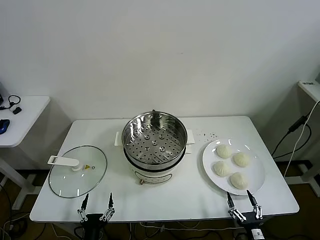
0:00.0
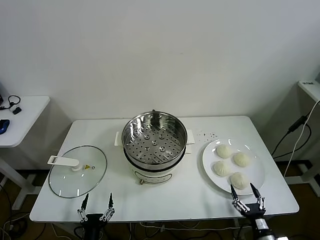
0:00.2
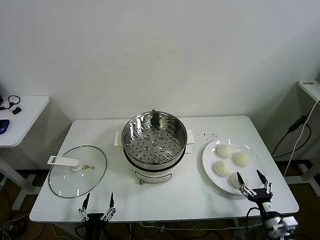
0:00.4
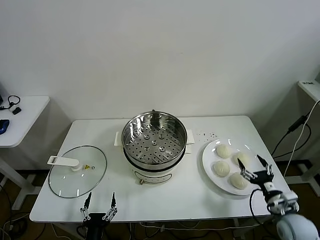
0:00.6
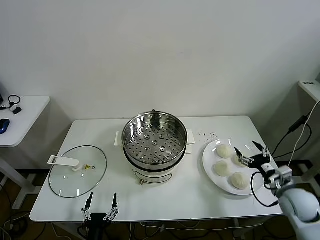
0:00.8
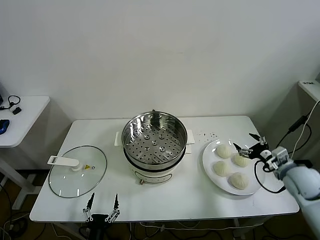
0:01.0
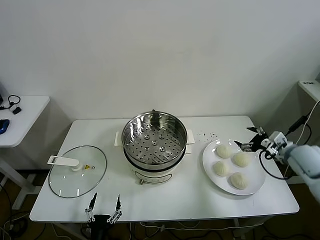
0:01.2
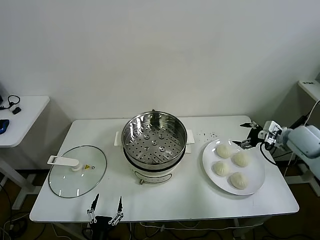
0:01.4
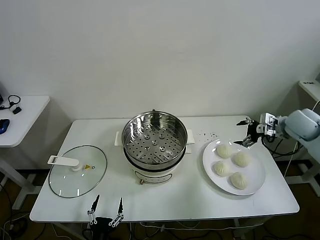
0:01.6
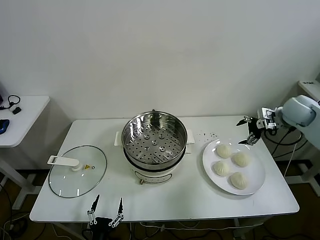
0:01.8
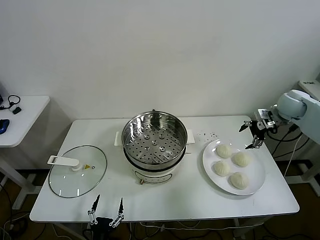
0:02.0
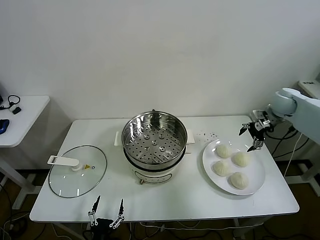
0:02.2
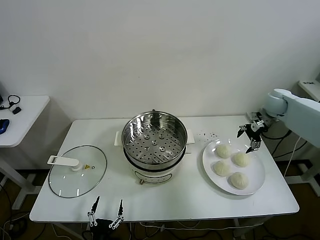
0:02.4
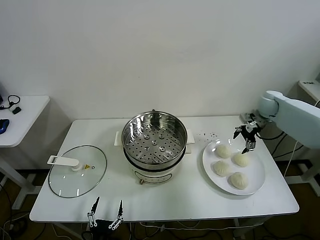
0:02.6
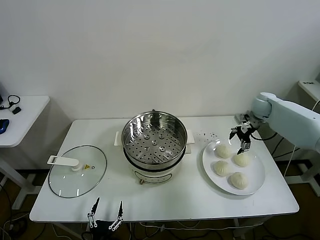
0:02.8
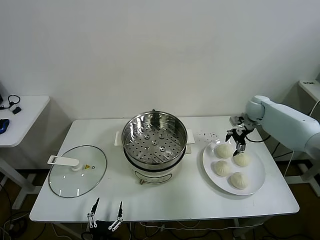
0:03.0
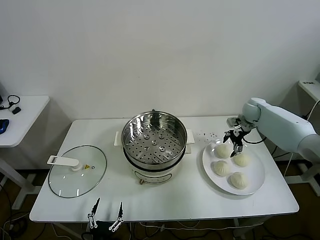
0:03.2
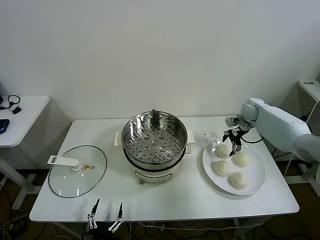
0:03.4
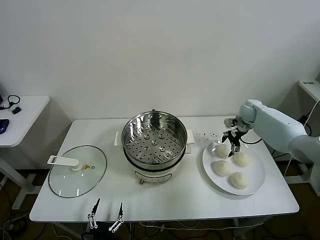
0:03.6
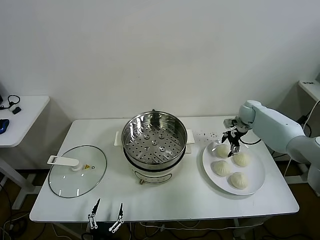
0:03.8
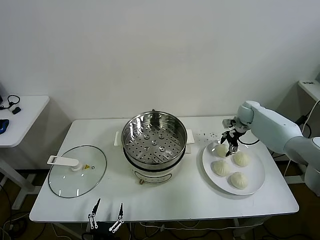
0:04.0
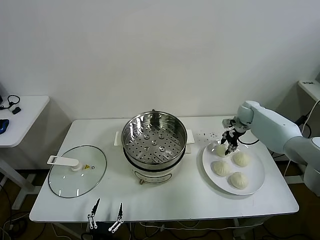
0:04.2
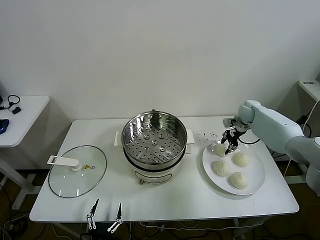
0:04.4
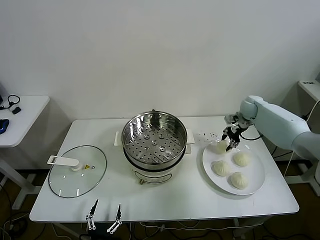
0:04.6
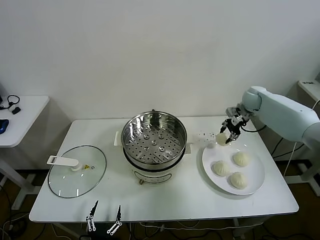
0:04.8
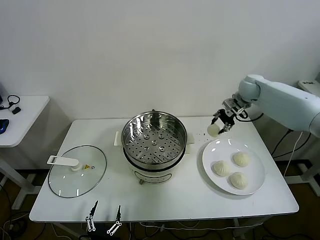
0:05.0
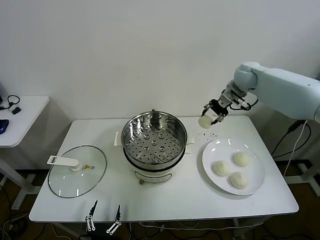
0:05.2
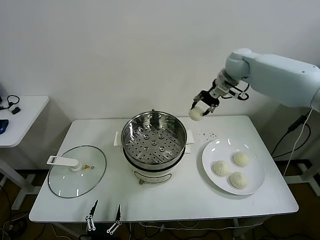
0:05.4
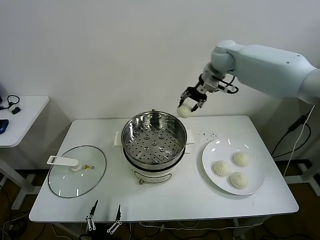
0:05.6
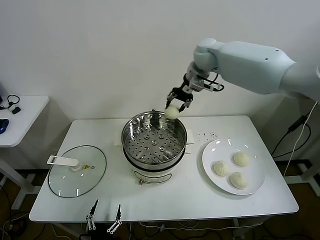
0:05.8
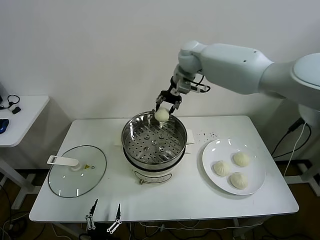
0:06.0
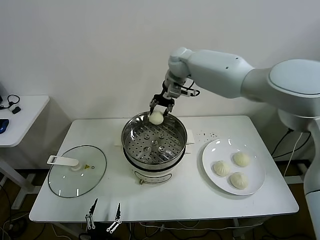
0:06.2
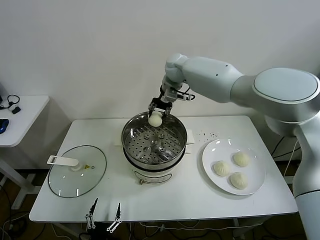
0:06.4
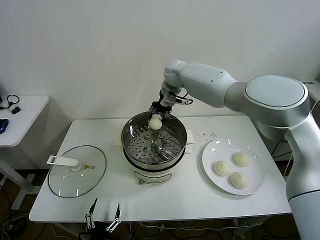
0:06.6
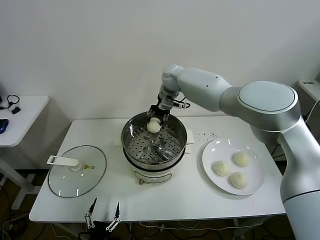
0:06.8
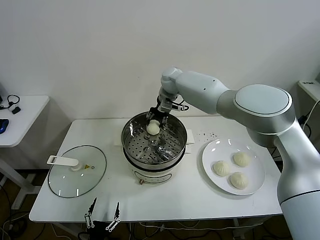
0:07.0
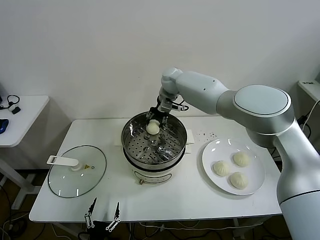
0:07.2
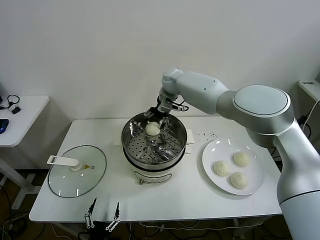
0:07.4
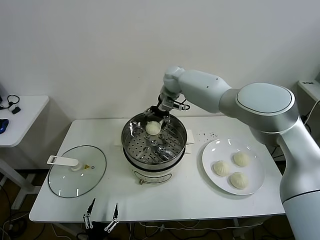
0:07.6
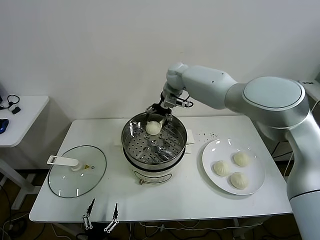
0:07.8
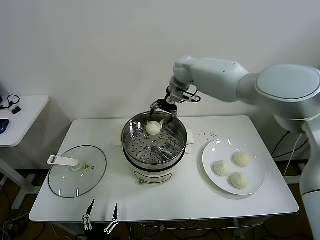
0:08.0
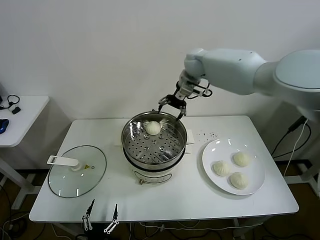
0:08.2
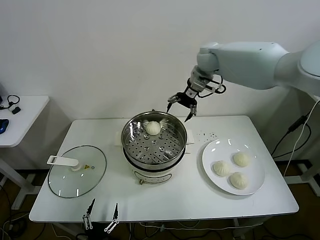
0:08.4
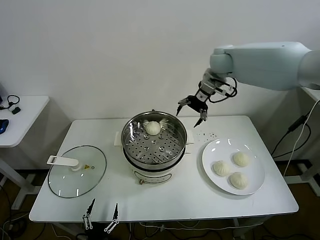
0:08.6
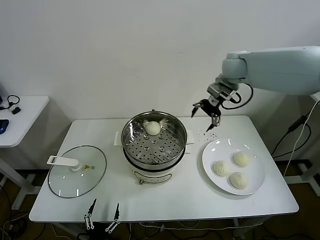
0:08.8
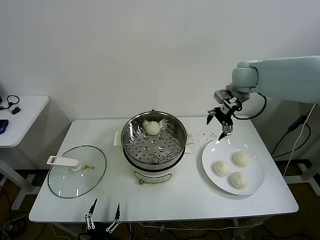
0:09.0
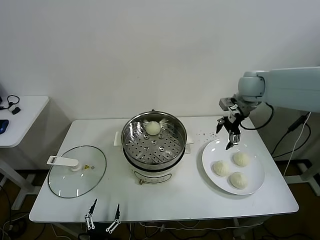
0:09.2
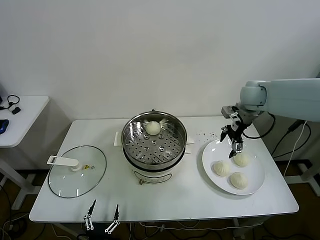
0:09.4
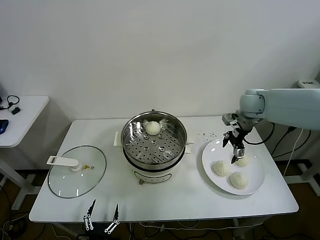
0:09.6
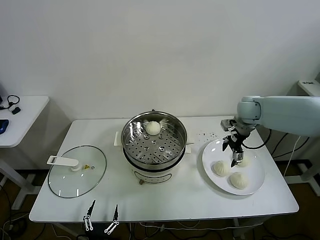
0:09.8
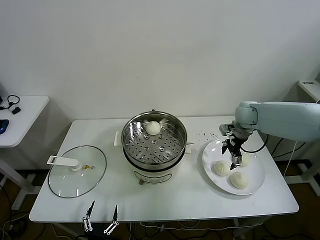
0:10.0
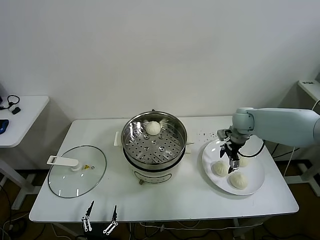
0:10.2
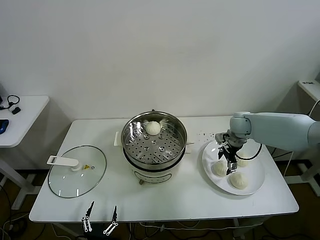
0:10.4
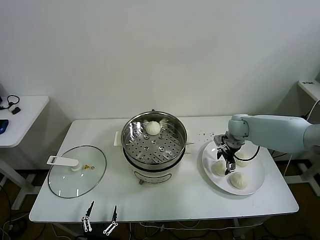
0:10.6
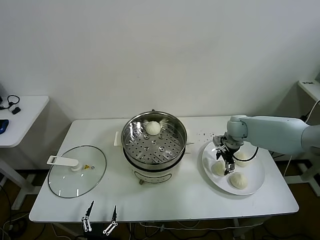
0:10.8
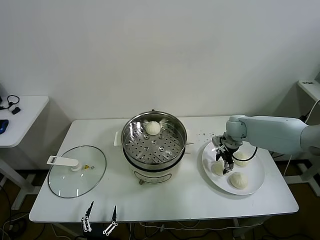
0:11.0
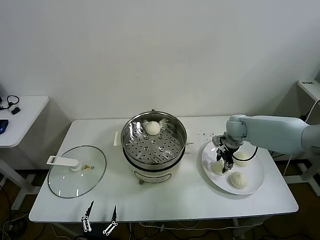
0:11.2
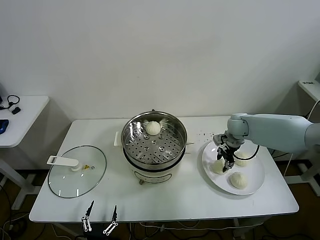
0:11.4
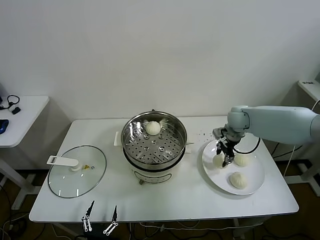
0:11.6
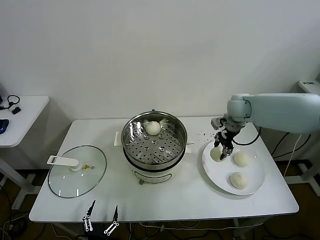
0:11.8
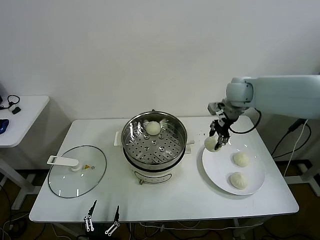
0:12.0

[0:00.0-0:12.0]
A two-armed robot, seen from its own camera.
Task of the whole recording: take steamed baozi put them in steamer.
Step, 0:00.0 to 0:04.2: Grasp the baozi in the plate with right gripper.
Step, 0:04.4 to 0:07.6: Place the baozi on the steamer with right gripper.
Step, 0:07.8 to 0:11.2: Grasp the baozi in the plate with right gripper.
0:01.6 to 0:03.0: The right gripper goes approximately 15 cm forward, downward and to the left.
0:03.0 to 0:04.4: The right gripper closes up.
0:04.4 to 0:06.0: The right gripper heads to the left and upward, covering about 35 cm.
0:06.0 to 0:07.6: The right gripper shifts about 10 cm downward, and opens.
0:07.6 to 0:09.0: The right gripper travels to the right and backward by approximately 25 cm.
0:09.0 to 0:10.4: The right gripper travels downward by approximately 20 cm.
0:10.4 to 0:12.0: The right gripper travels upward by roughly 20 cm, and closes.

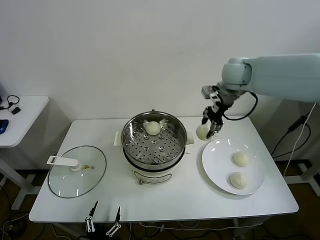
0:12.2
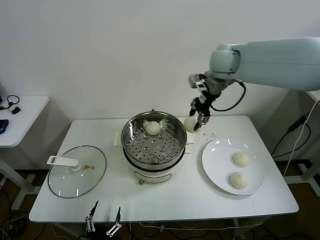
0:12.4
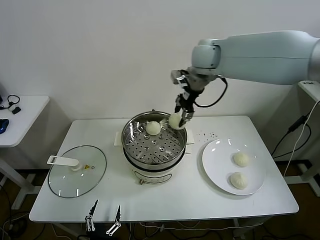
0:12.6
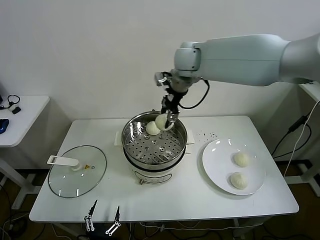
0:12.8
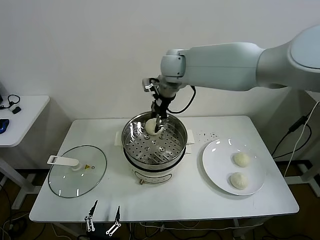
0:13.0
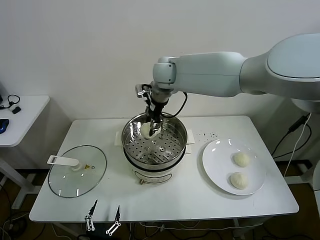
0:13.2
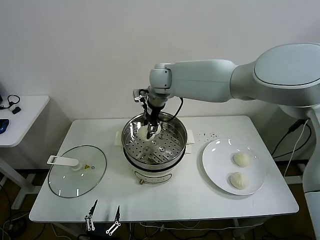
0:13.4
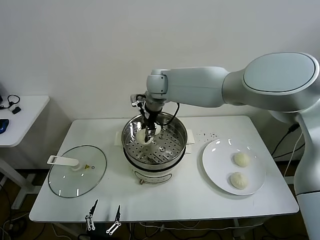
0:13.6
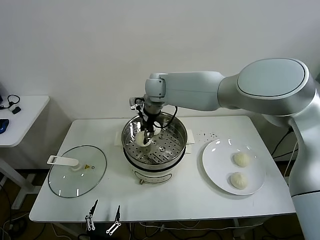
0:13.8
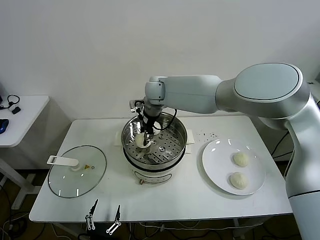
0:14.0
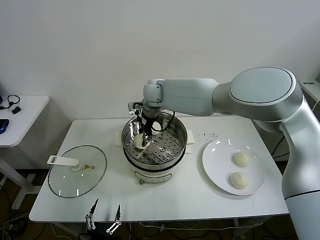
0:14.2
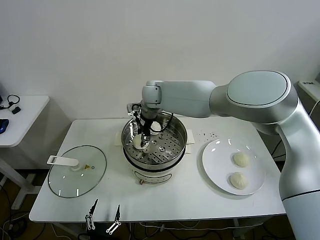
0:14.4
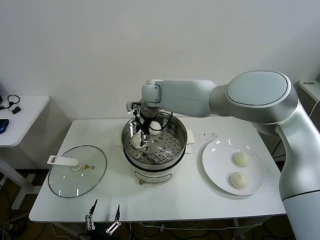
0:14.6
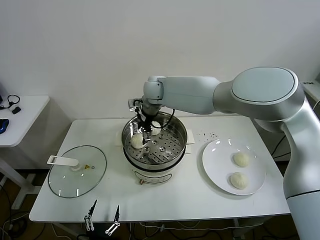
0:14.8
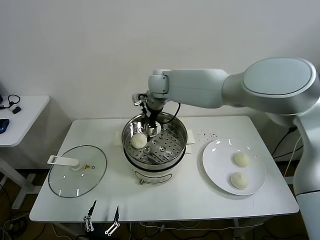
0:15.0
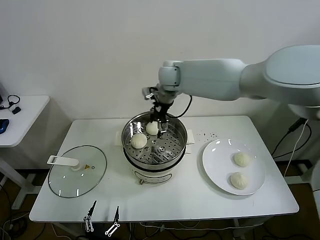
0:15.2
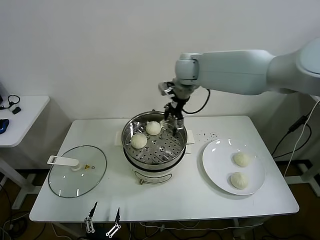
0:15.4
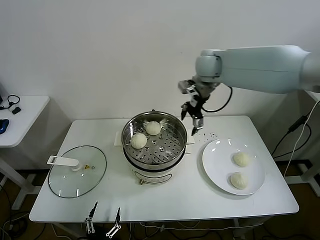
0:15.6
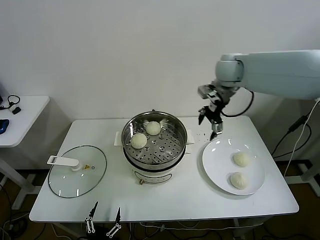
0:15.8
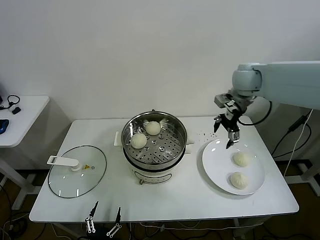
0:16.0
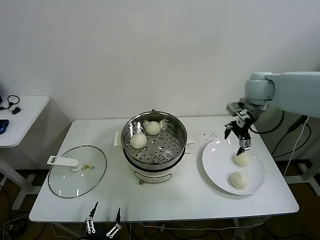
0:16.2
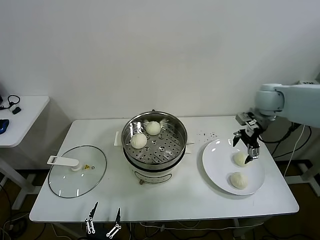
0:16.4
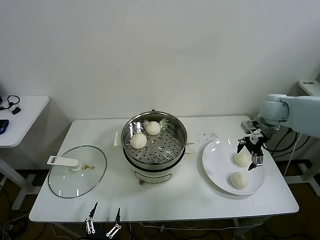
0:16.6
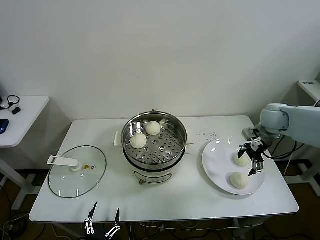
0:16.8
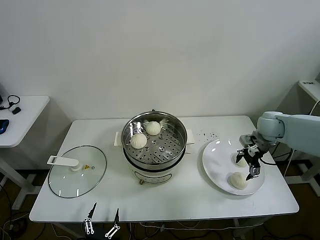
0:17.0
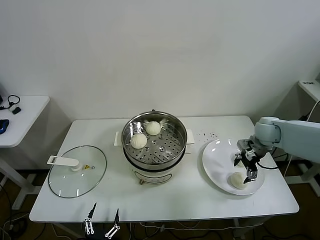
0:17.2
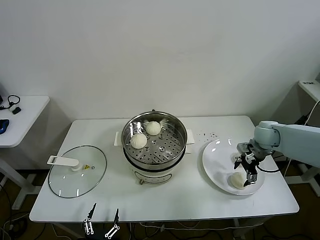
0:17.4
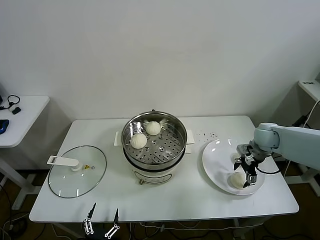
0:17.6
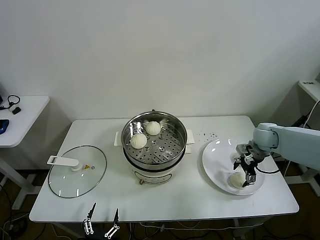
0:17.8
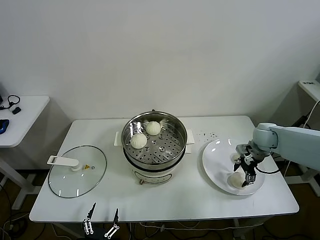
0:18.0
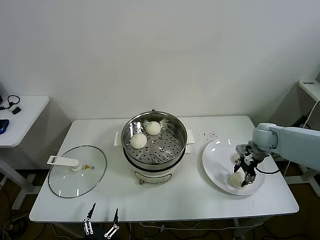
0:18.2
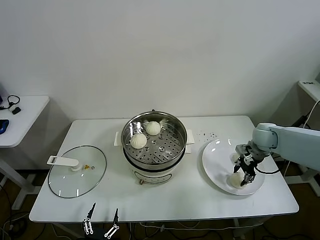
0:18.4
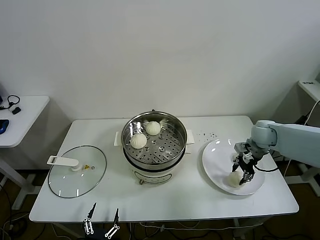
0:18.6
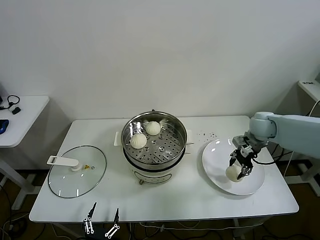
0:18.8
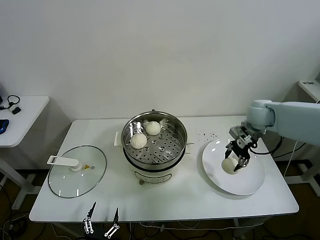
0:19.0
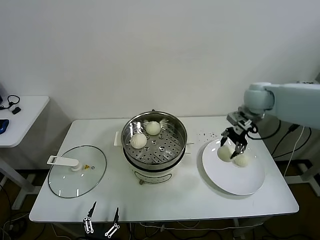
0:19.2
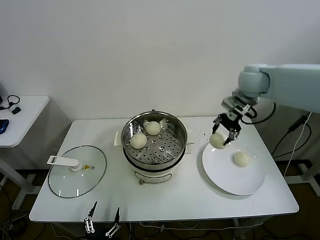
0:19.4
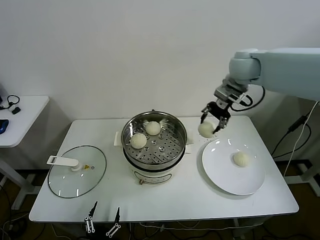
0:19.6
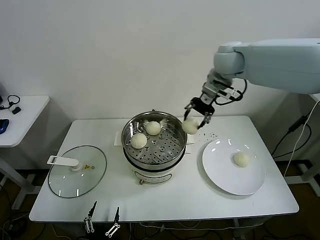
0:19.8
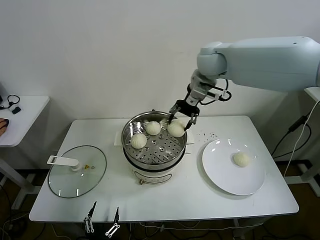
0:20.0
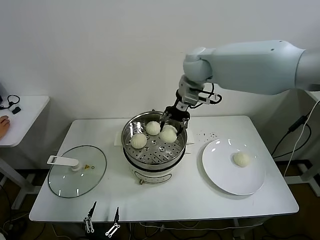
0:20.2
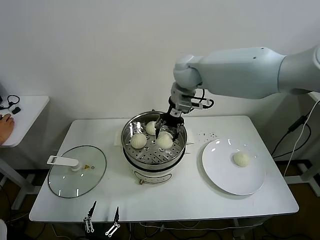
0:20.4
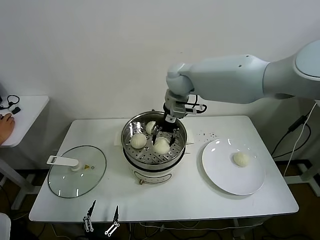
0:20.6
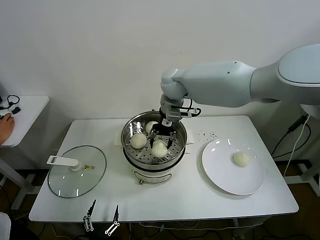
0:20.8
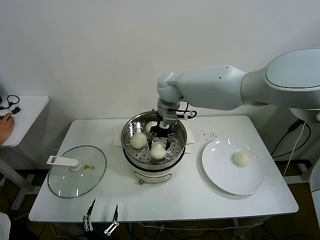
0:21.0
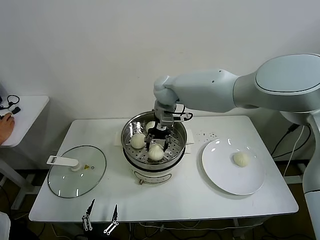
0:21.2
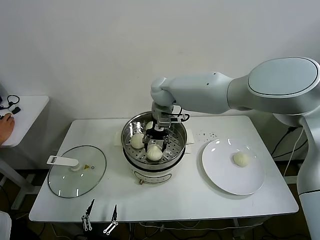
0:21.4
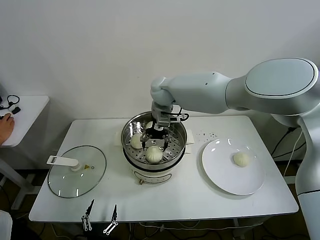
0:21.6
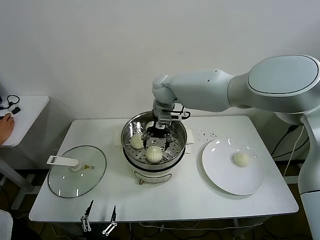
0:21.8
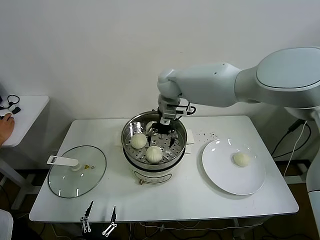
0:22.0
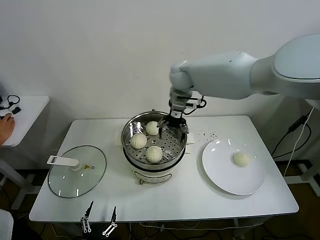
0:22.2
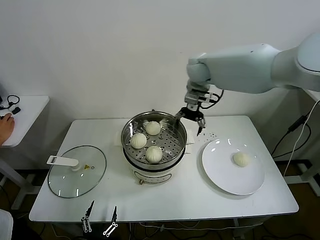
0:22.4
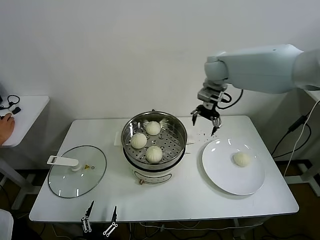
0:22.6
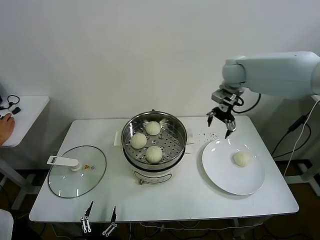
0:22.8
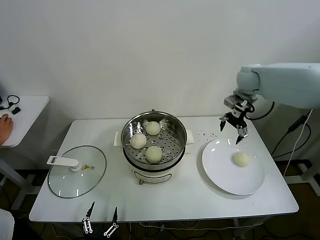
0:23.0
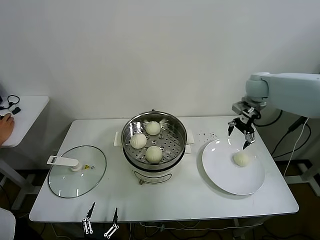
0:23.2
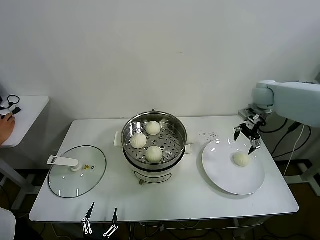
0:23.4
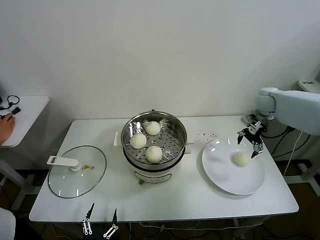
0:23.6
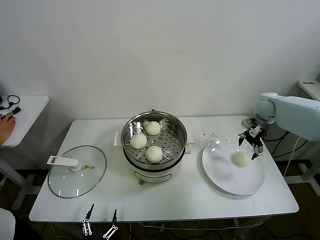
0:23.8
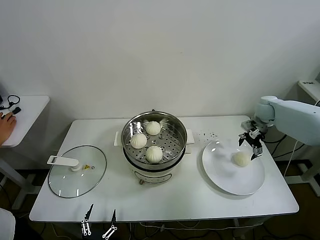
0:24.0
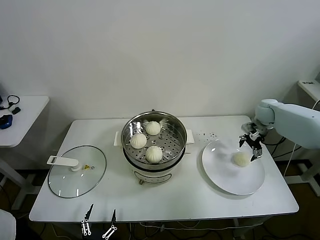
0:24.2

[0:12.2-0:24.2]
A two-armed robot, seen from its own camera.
Task of the whole recording: take steamed baozi put them in steamer.
Step, 0:12.2 to 0:14.8: Place the baozi on the steamer with right gripper.
Step, 0:15.0 to 0:18.4: Grasp the baozi in the plate with right gripper.
Step, 0:18.8 to 0:21.6: Place the baozi on the steamer with right gripper.
0:12.2 to 0:13.8: The right gripper travels to the left by roughly 25 cm.
0:13.8 to 0:15.2: The right gripper moves to the right, about 5 cm, and opens.
0:15.2 to 0:16.6: The right gripper is displaced to the right by about 35 cm.
0:16.6 to 0:18.2: The right gripper heads downward, covering roughly 10 cm, and closes up.
0:18.2 to 0:19.8: The right gripper travels upward and to the left by some 35 cm.
0:19.8 to 0:21.2: The right gripper is displaced to the left and downward by some 20 cm.
0:21.2 to 0:22.6: The right gripper travels to the right and upward by roughly 20 cm, and opens.
0:22.6 to 0:24.2: The right gripper moves to the right and downward, about 30 cm.
